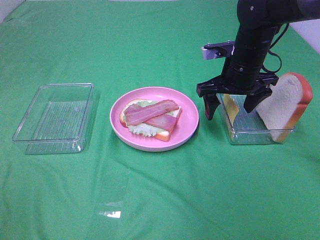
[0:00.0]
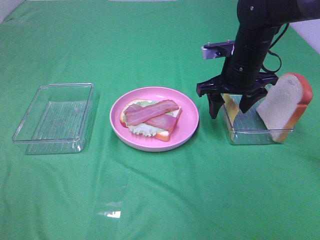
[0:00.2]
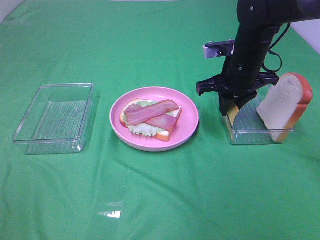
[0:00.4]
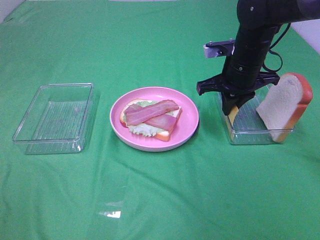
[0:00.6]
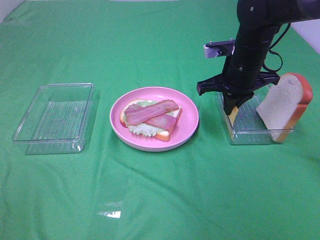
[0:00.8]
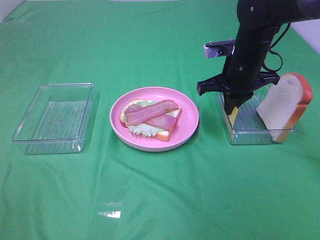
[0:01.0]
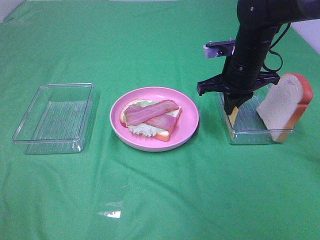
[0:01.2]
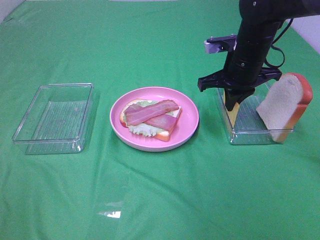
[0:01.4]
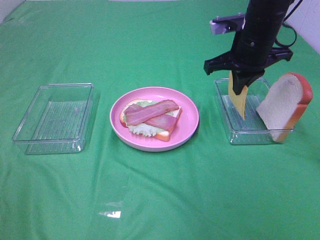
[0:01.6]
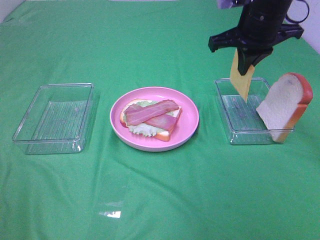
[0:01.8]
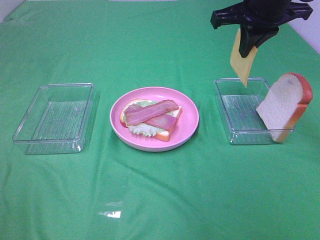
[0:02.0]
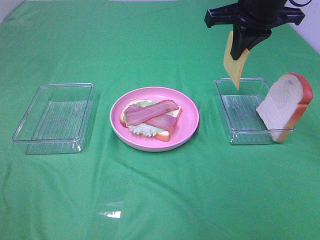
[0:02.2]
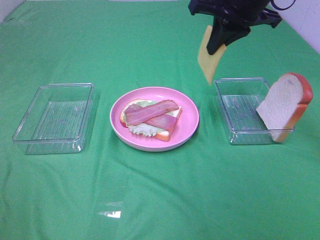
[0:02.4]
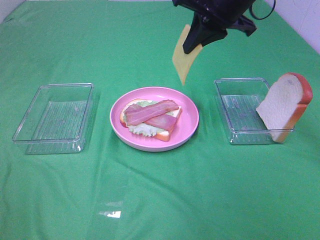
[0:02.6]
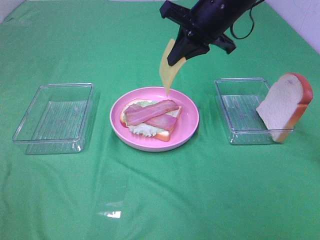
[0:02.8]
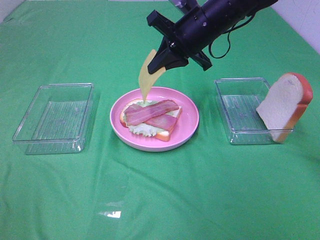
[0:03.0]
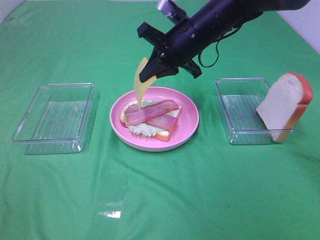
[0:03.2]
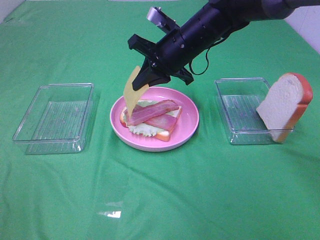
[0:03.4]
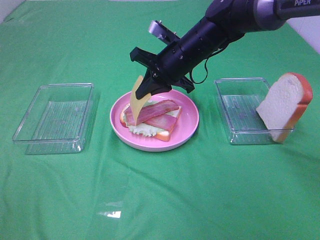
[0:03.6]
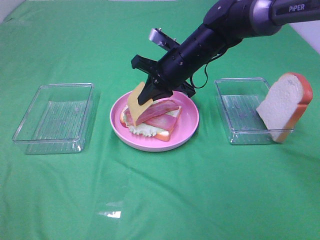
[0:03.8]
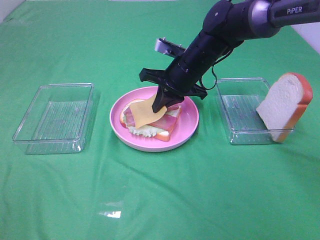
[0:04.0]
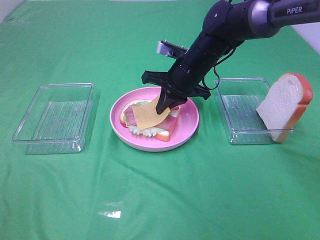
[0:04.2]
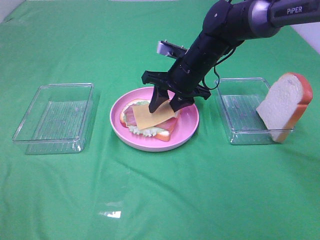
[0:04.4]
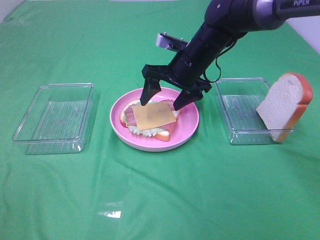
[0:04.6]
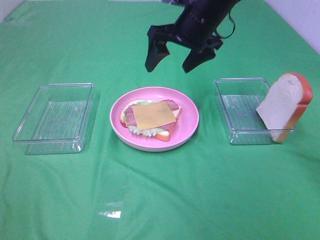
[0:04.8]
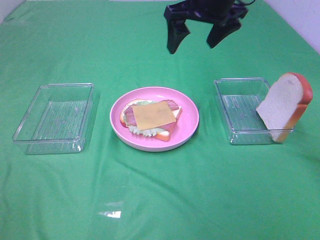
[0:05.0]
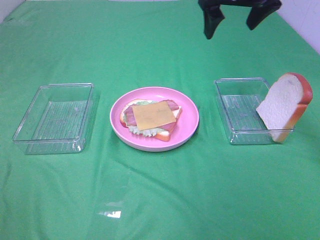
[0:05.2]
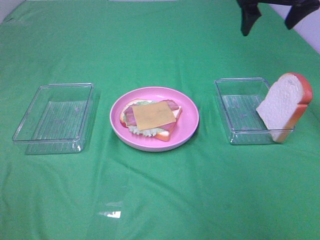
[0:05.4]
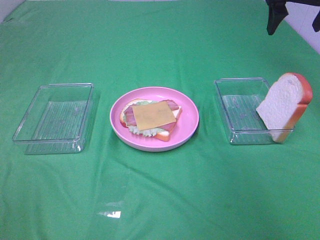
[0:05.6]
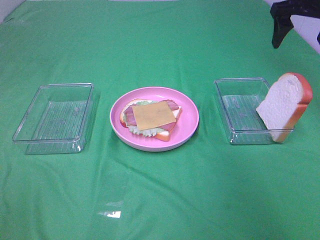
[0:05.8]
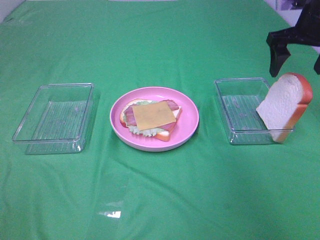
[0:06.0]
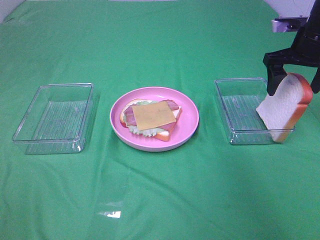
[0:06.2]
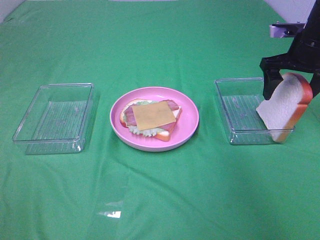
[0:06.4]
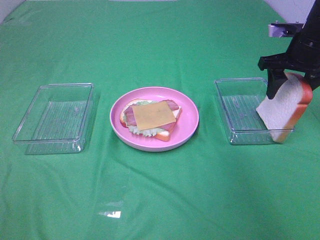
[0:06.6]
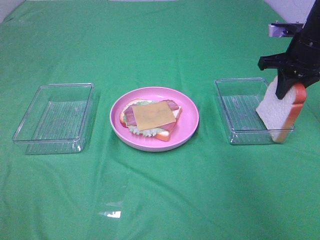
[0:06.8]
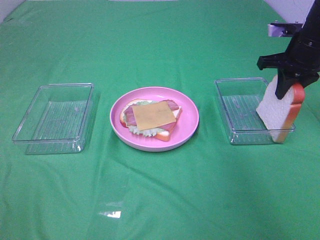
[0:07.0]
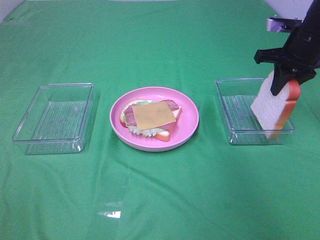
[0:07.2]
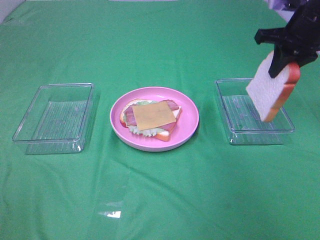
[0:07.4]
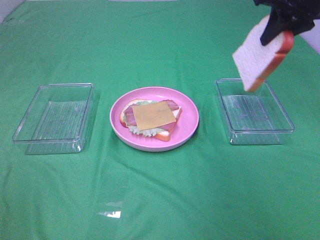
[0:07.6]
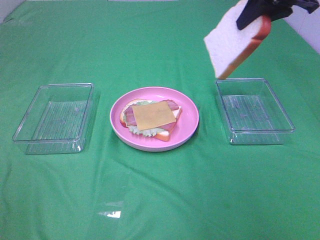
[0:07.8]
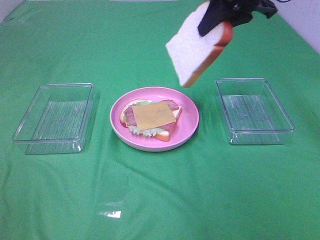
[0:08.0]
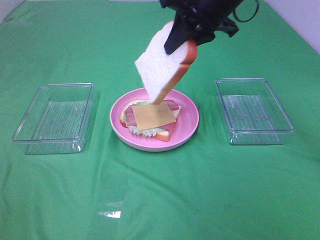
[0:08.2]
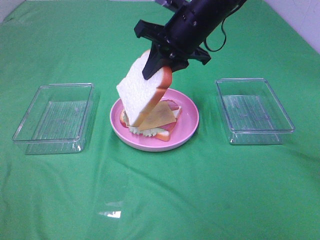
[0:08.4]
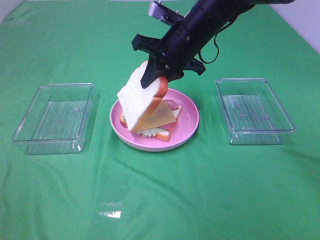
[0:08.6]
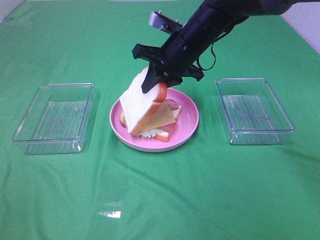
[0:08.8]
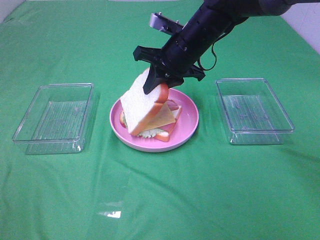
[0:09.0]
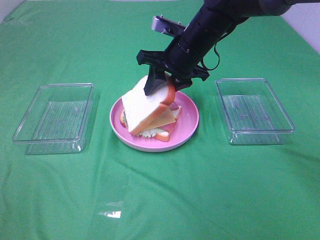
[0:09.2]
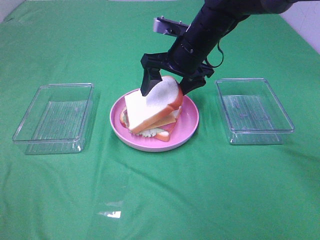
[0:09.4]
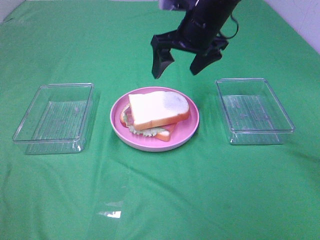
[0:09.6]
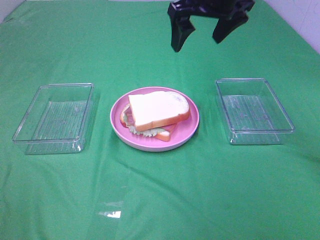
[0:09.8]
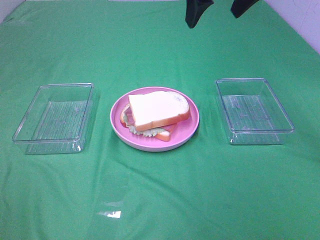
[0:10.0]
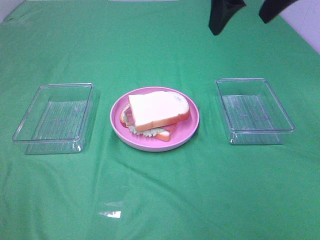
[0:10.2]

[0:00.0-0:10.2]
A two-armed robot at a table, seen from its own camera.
Task of the whole recording: Make sandwiches.
Step, 0:01.4 to 0:04.6: Right hand:place the cheese slice on top of the bacon.
Step, 0:04.8 to 0:07.0: Right hand:grab the bread slice.
Step, 0:07.2 to 0:09.6: Right hand:place the bread slice on the cheese slice.
0:00.0 to 0:01.4: The right gripper closes.
0:01.4 to 0:03.0: The right gripper is displaced to the left by roughly 5 cm.
0:03.0 to 0:04.4: The right gripper shifts about 10 cm downward, and opens.
0:04.4 to 0:05.8: The right gripper is displaced to the right and upward by approximately 25 cm, and opens.
0:05.8 to 0:07.2: The right gripper travels downward by some 5 cm, and closes its fingers.
0:07.2 to 0:08.8: The right gripper heads to the left, covering some 20 cm.
0:08.8 to 0:10.2: The right gripper heads upward, backward and to the right, covering roughly 20 cm, and opens its fingers.

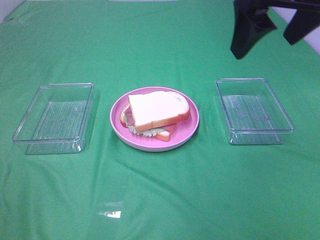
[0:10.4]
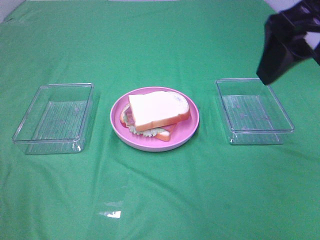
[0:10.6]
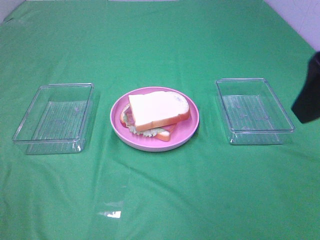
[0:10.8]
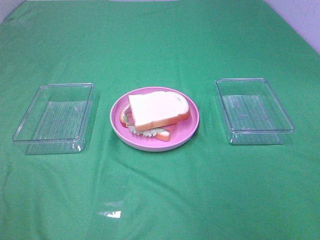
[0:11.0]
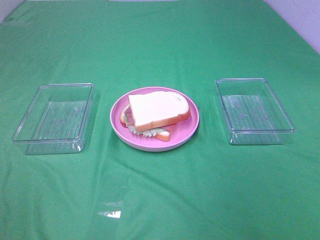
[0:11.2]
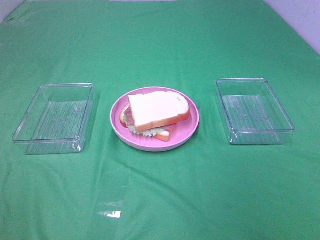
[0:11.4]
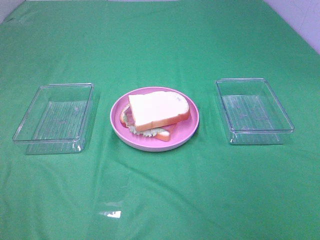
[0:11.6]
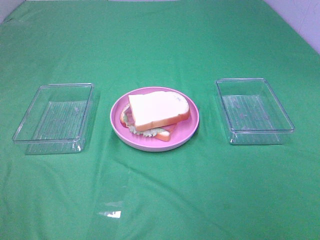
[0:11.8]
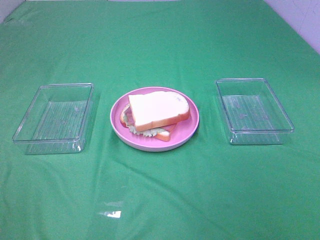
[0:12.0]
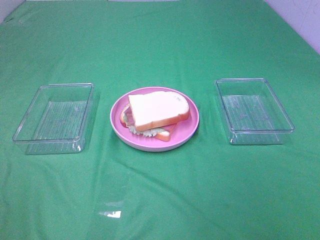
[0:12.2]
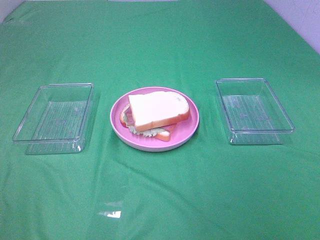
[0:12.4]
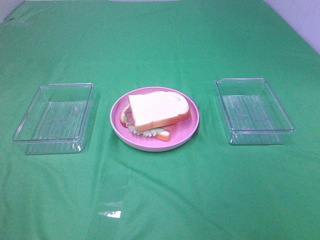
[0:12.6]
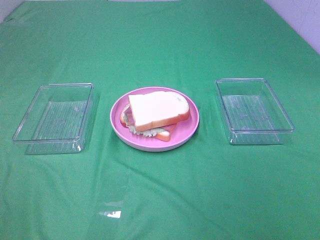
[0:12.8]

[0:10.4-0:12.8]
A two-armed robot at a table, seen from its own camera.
Task of the whole recording: Make sandwiches.
0:10.4 to 0:11.6: The right gripper shifts roughly 30 cm backward and to the right.

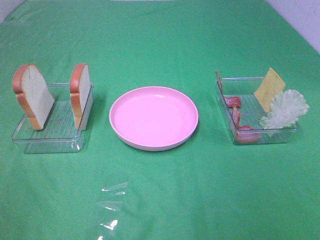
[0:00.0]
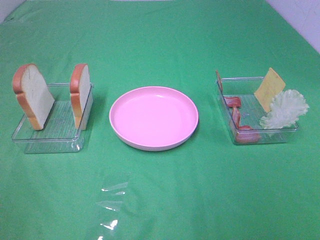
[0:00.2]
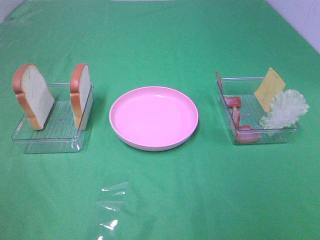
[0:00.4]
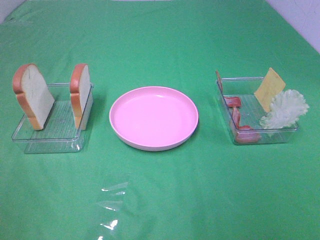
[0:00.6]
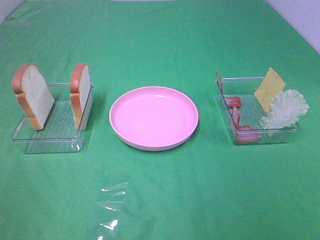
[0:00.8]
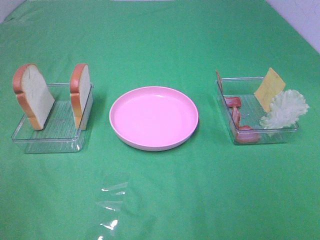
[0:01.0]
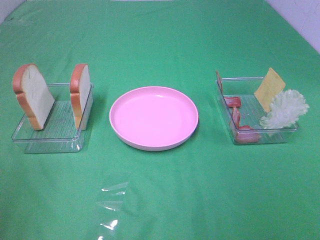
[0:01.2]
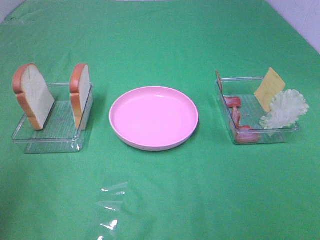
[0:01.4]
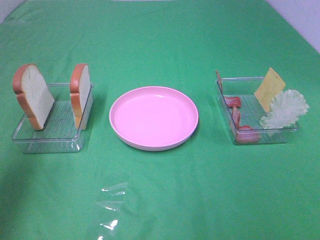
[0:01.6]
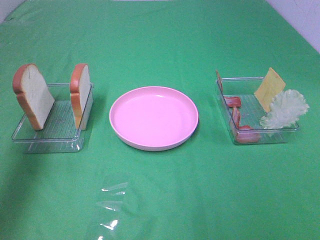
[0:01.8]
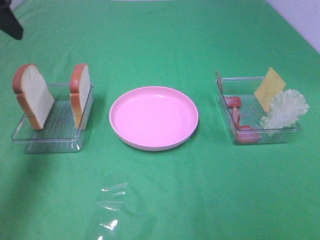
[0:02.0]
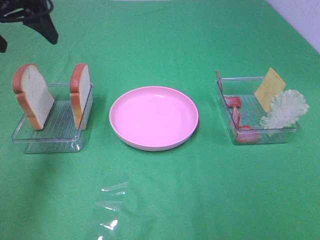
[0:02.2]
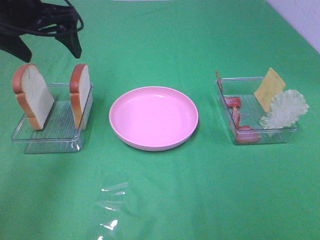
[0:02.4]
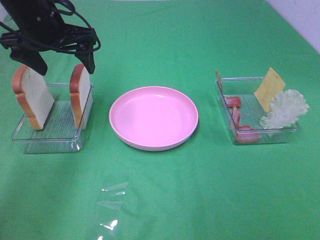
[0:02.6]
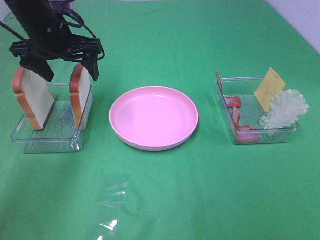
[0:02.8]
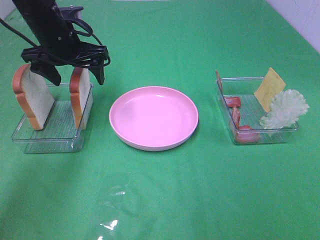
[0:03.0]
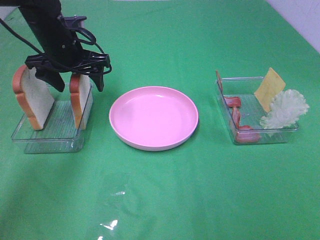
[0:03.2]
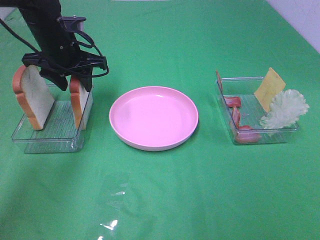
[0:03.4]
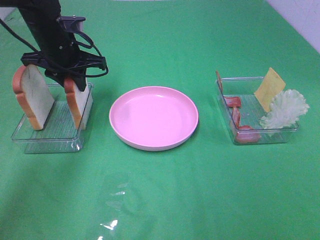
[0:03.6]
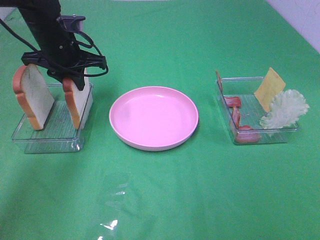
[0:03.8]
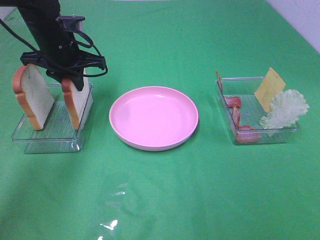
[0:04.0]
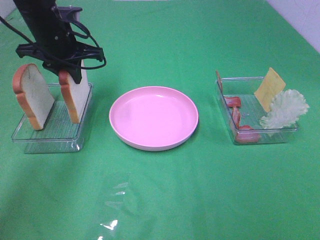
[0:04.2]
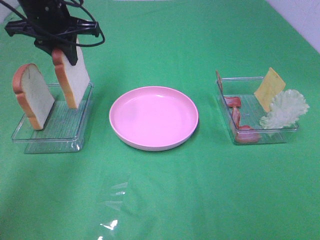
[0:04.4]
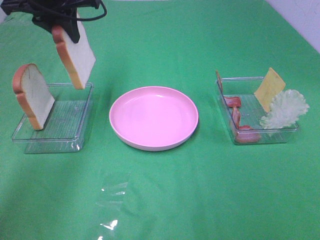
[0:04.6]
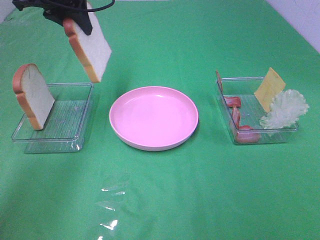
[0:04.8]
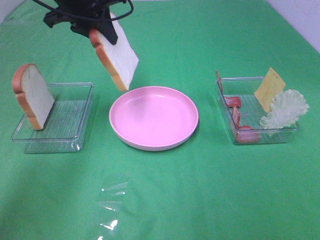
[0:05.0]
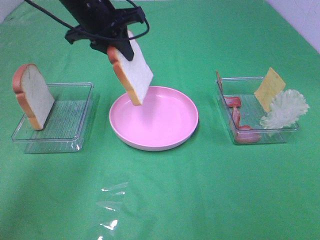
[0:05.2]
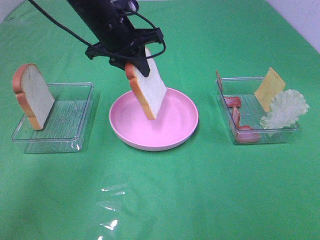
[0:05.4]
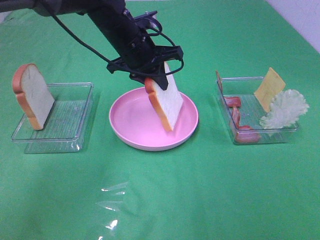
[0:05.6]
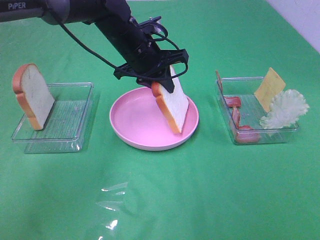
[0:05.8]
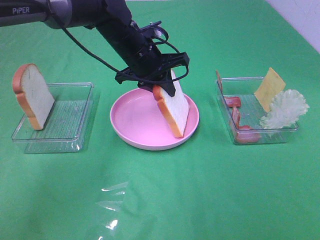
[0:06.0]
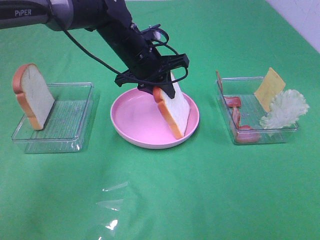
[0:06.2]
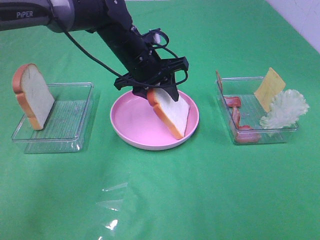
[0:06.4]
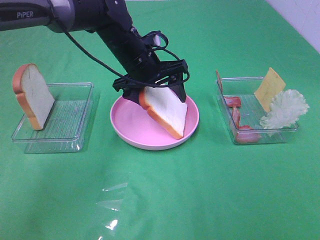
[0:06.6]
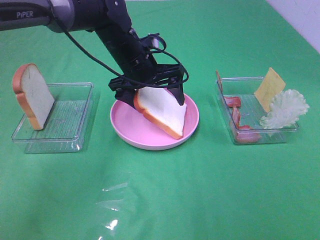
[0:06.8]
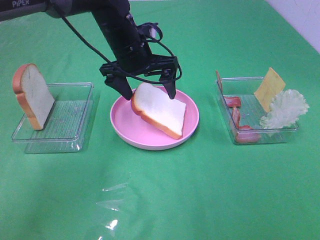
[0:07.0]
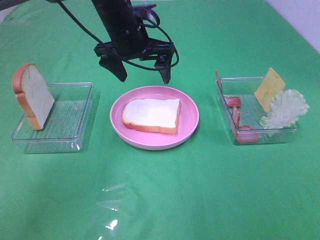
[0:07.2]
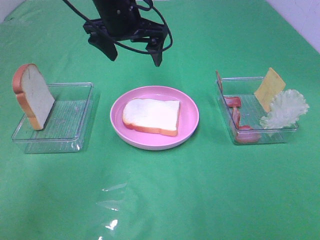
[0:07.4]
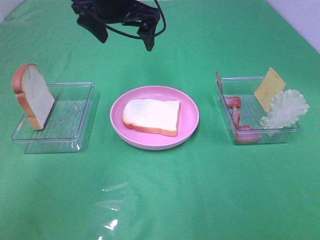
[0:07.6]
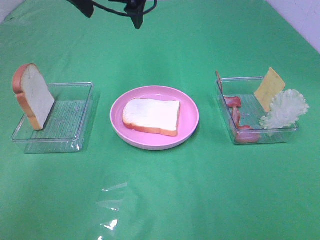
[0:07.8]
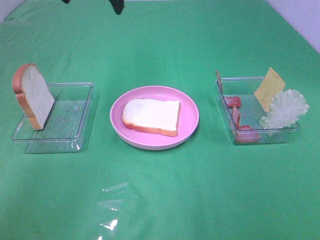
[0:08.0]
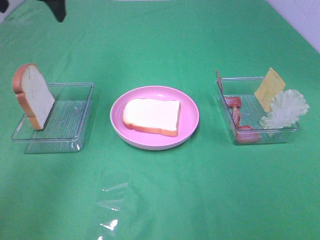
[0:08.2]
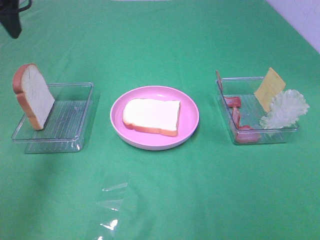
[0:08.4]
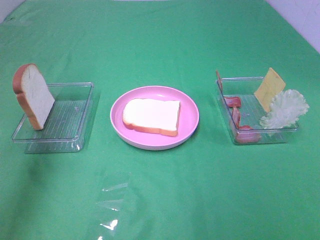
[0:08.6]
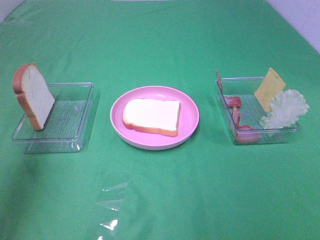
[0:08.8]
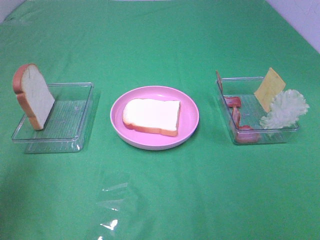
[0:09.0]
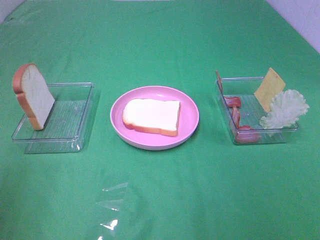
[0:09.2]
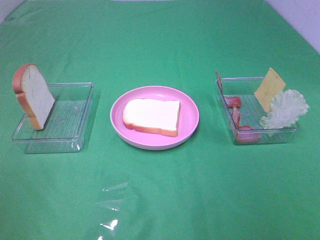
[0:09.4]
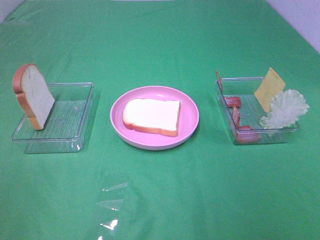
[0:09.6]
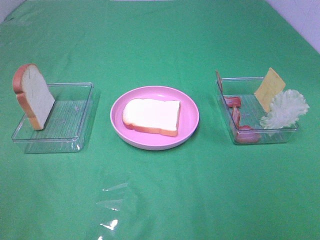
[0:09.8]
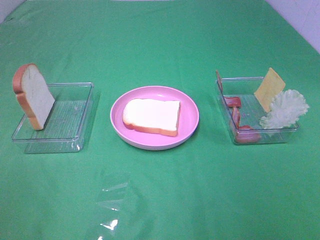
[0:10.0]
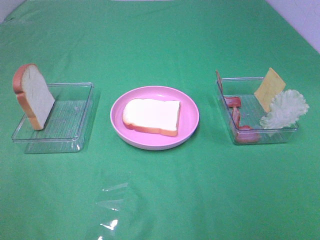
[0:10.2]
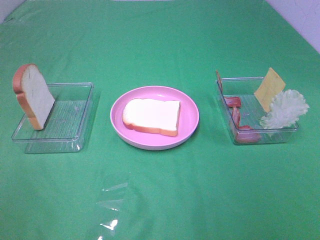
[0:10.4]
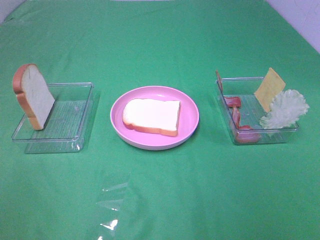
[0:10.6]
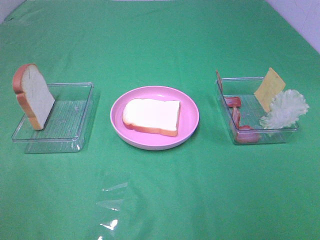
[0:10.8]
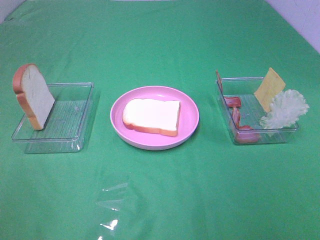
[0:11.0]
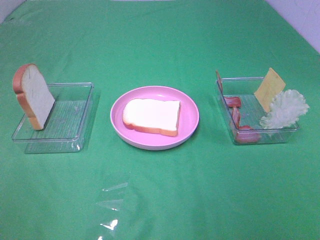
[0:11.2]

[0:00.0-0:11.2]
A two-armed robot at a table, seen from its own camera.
Task of the whole recording: Make sandwiches.
Step, 0:00.0 to 0:03.8: Left hand:grab the bread slice.
Step, 0:04.0 to 0:07.2: Left hand:place the bread slice on the plate.
0:00.0 to 0:01.6: The left gripper is displaced forward by approximately 20 cm.
0:01.6 to 0:03.2: The left gripper goes some 30 cm forward, downward and to the right.
0:03.2 to 0:04.8: The left gripper heads upward, covering approximately 10 cm, and closes.
0:04.8 to 0:06.4: The left gripper goes about 20 cm downward and to the right.
0:06.4 to 0:08.0: The left gripper goes roughly 20 cm upward and to the left, and opens its fingers.
